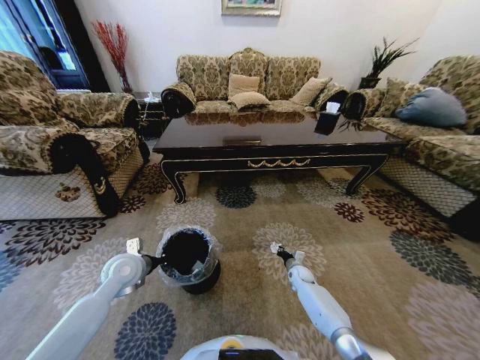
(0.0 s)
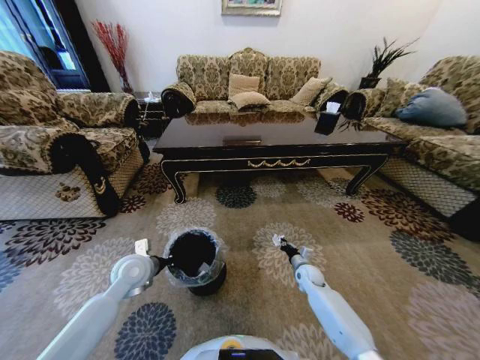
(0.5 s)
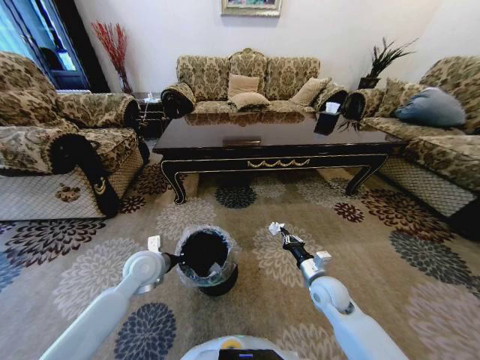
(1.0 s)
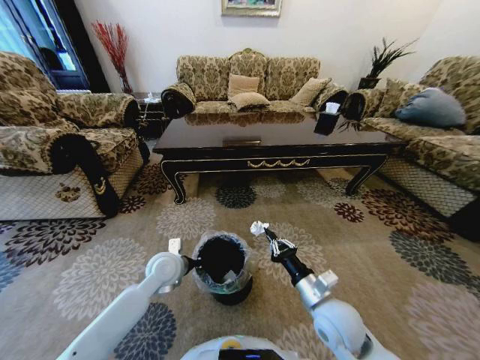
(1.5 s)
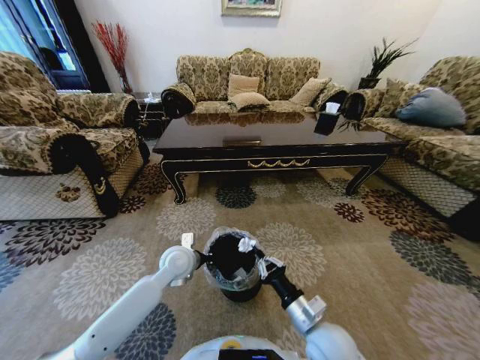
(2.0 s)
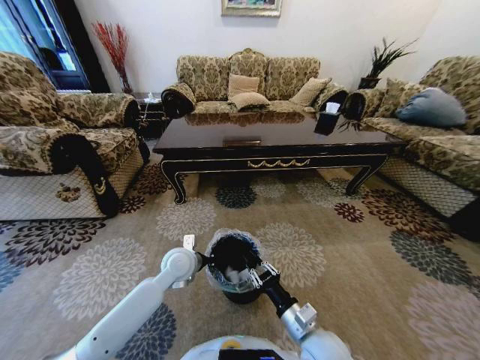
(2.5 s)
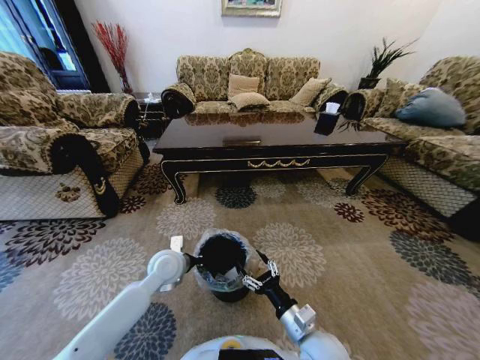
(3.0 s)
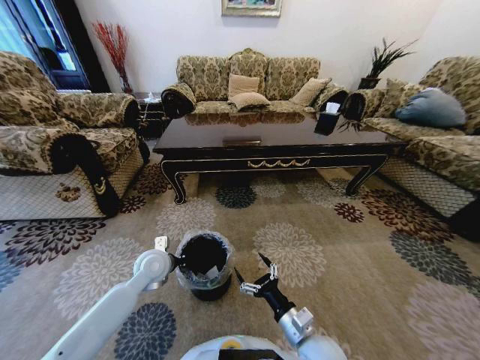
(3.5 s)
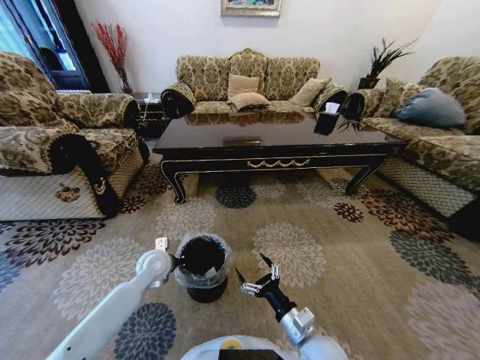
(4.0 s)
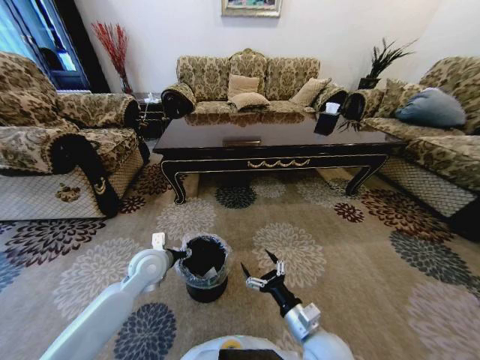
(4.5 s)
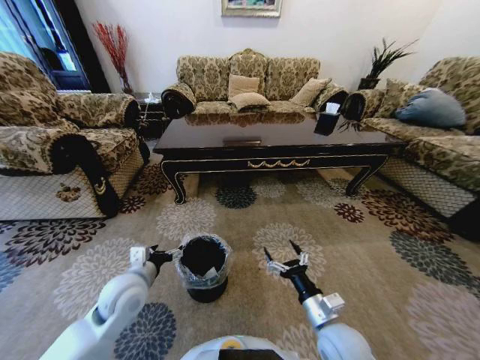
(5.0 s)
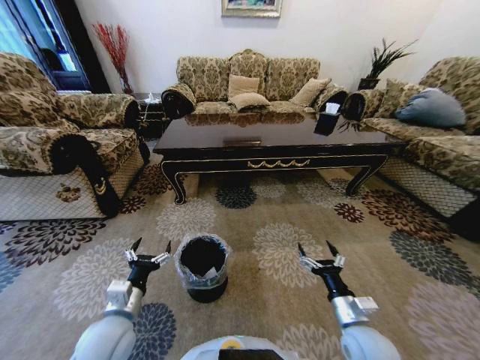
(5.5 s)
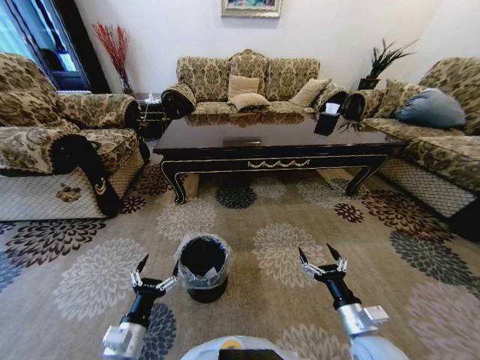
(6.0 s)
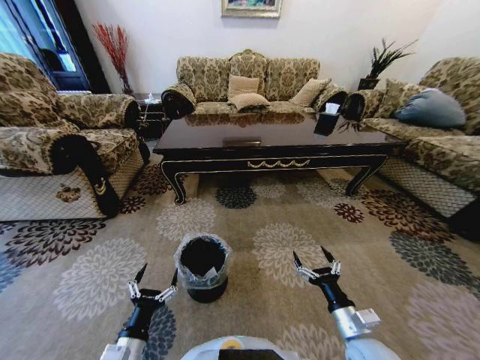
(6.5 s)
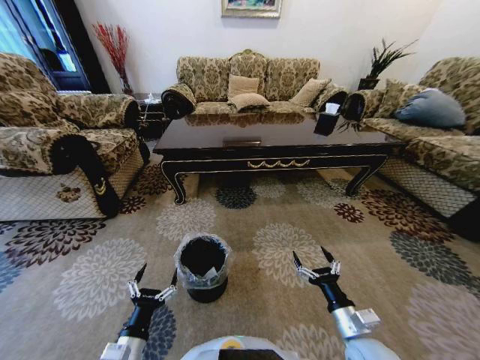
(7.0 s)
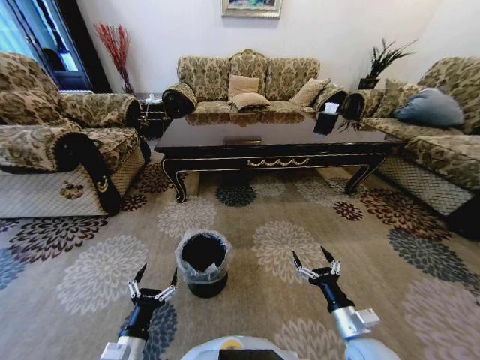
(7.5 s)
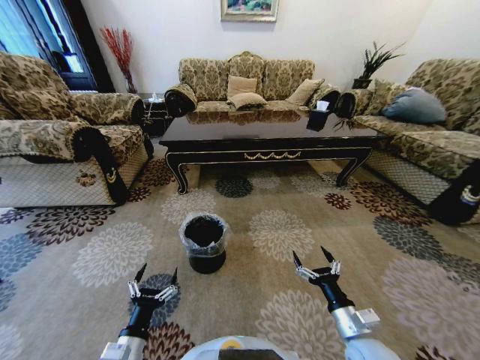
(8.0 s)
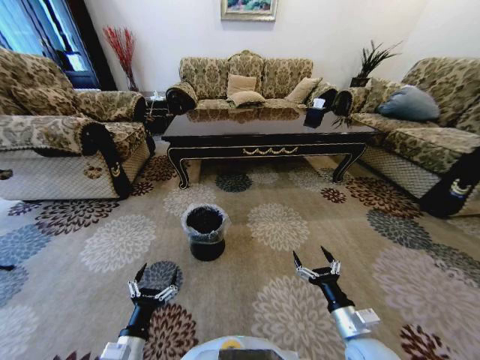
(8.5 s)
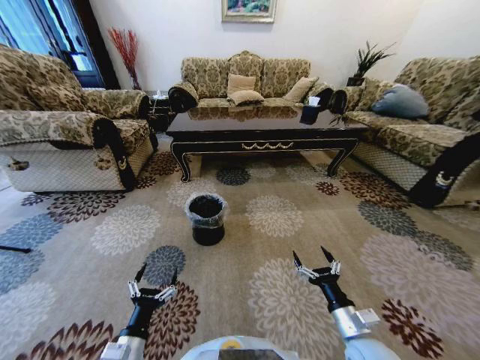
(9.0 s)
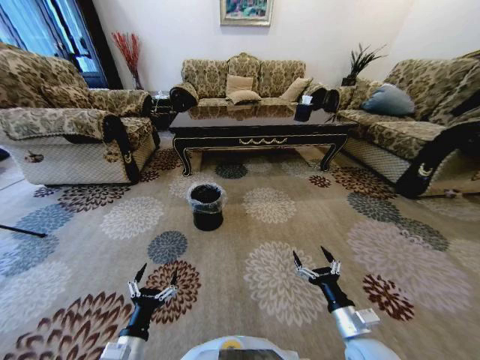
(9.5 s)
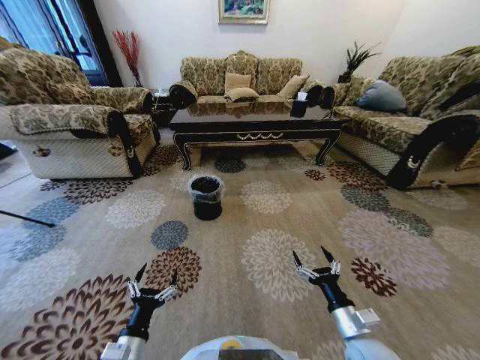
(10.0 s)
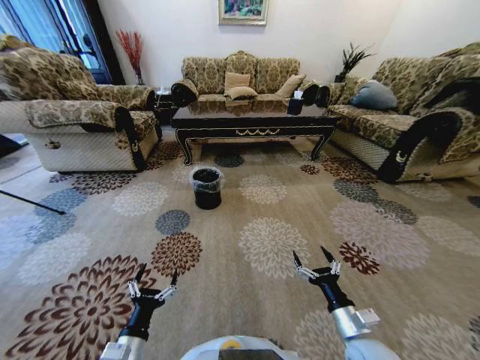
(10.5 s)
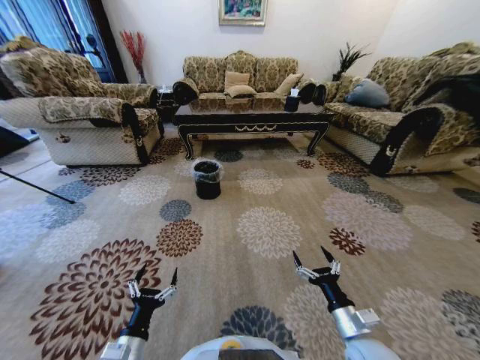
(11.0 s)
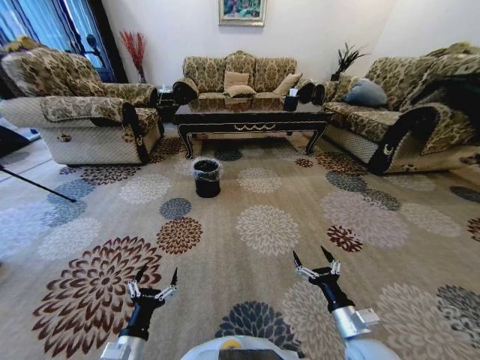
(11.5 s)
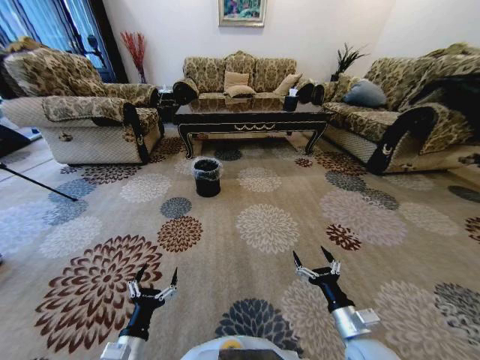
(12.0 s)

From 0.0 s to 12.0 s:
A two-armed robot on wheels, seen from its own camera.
Task of the whole recording: Move to the front of the table and pick up the trash from the floor, then place it into the trash bin.
From 0.0 s to 2.0 s: The right gripper moves backward, upward and to the left, approximately 35 cm. Meanwhile the left gripper goes some 15 cm to the right.
From 2.0 s to 4.0 s: The right gripper opens its fingers. The left gripper moves to the left, approximately 10 cm.
From 4.0 s to 6.0 s: The left gripper travels backward by some 25 cm, and opens up. Meanwhile the right gripper shifts some 10 cm to the right.

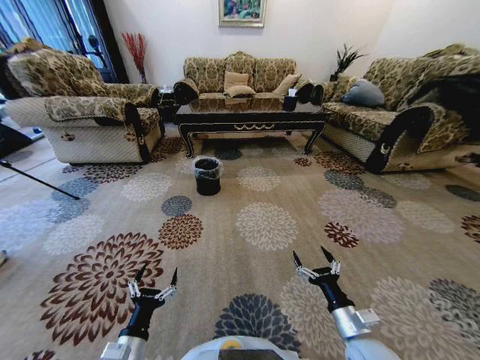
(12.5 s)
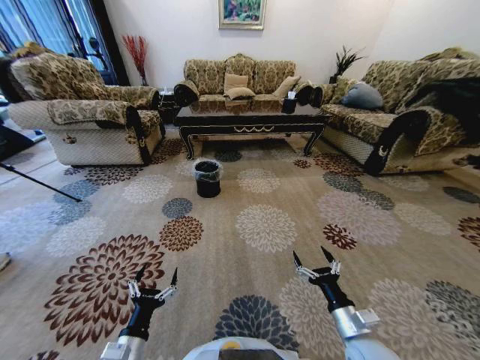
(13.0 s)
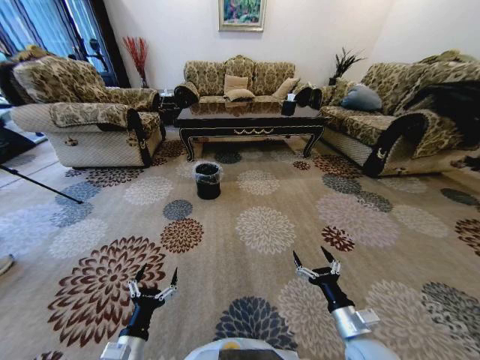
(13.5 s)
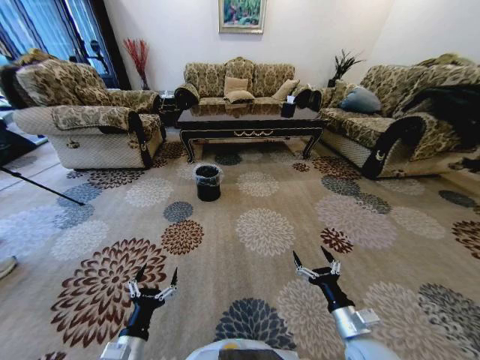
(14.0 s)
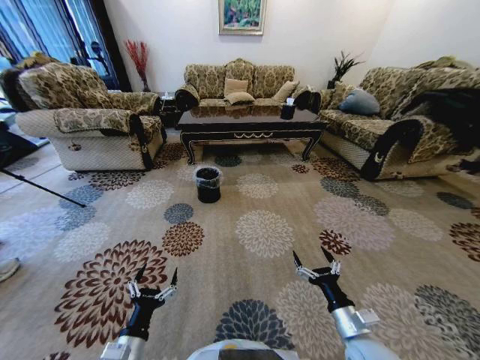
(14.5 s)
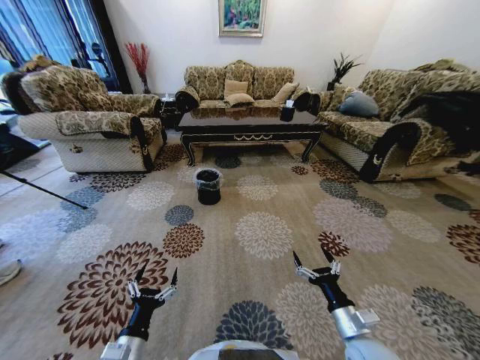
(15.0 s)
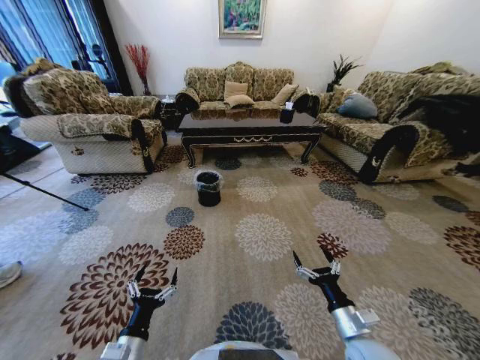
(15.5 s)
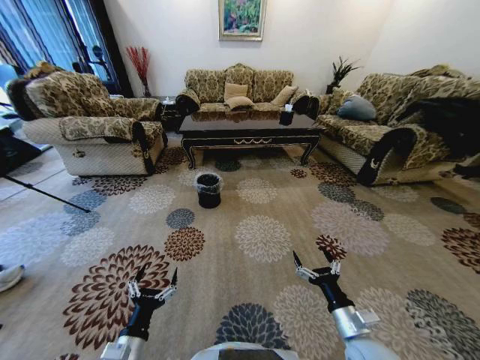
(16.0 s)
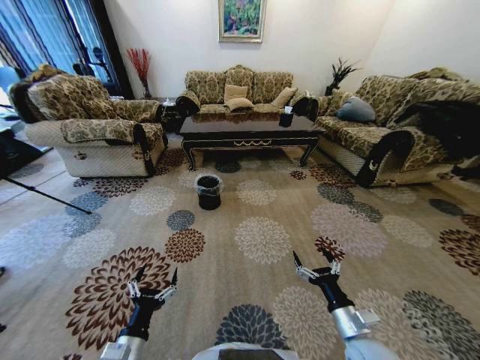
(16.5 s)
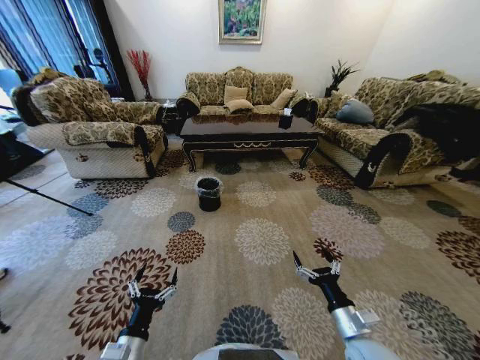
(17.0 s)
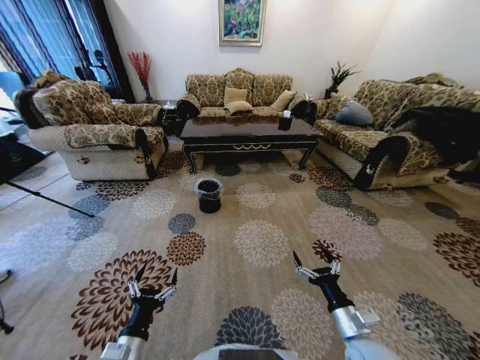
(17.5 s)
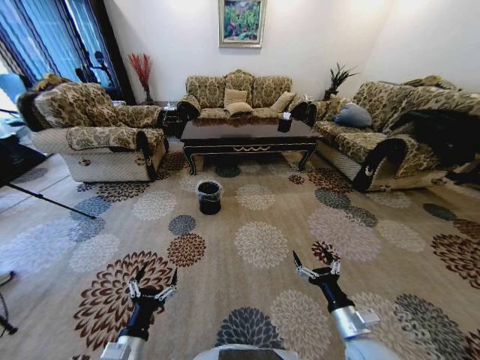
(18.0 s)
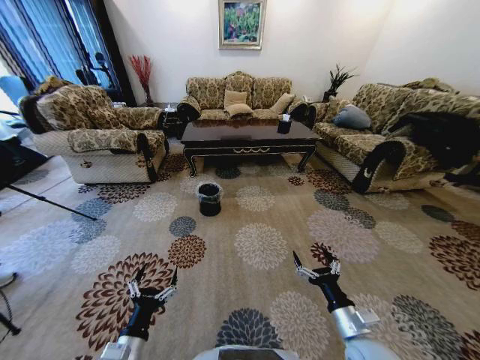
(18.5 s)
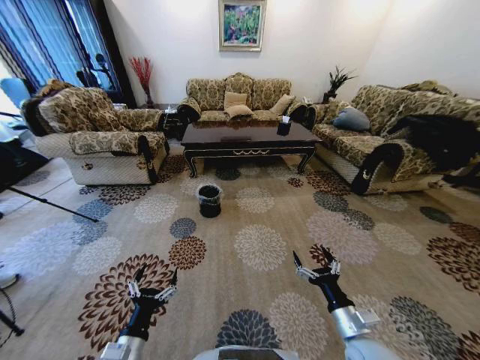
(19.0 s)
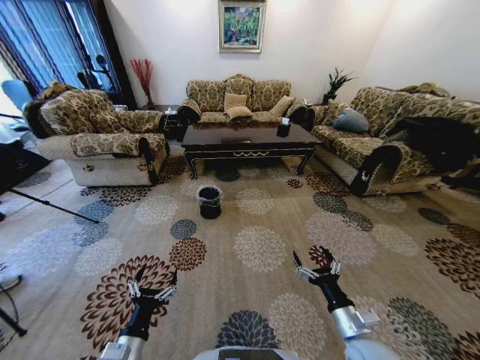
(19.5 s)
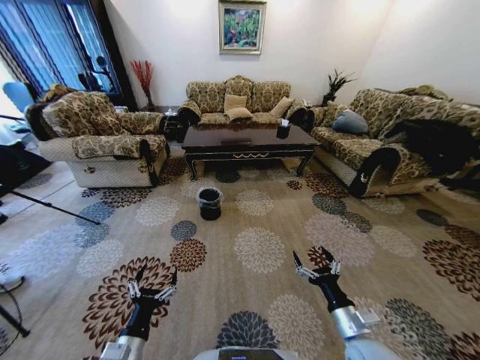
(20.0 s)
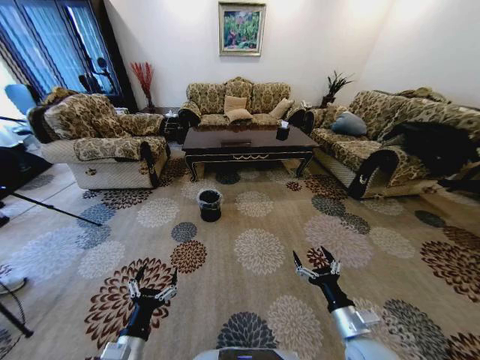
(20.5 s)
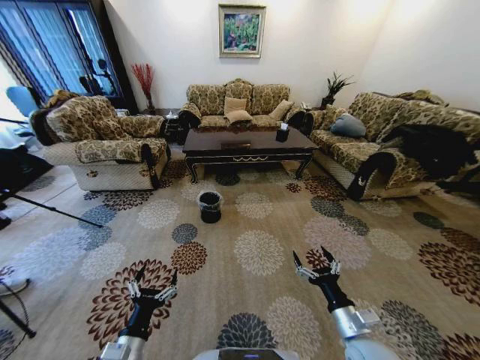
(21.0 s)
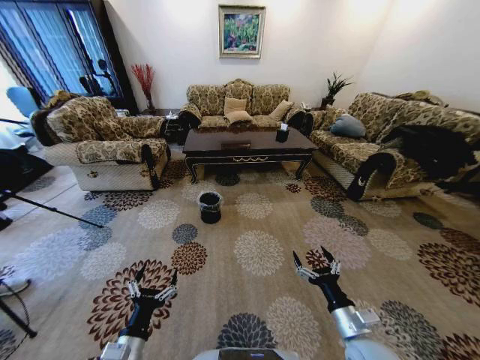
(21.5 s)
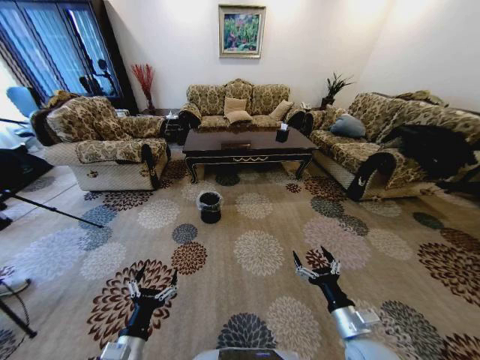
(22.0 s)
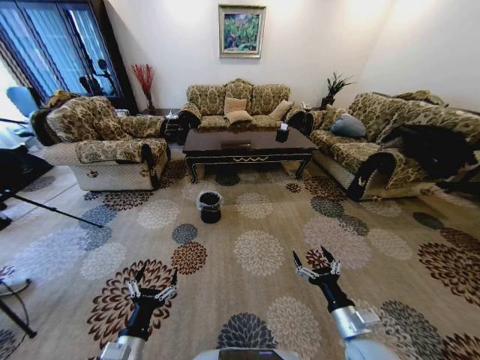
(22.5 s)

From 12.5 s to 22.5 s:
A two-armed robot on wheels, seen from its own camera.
Task of the whole recording: Move to the front of the table and pick up the trash from the floor, then place it into the trash bin.
From 20.5 s to 22.5 s: The two grippers keep their place.

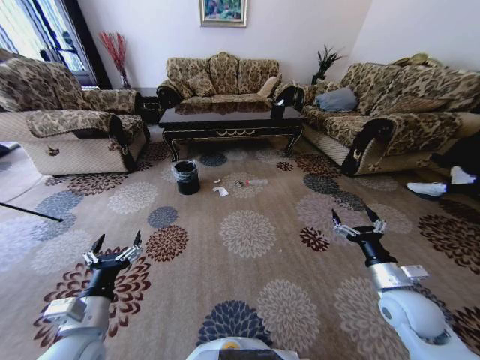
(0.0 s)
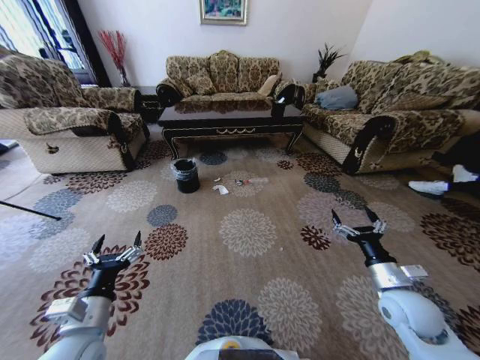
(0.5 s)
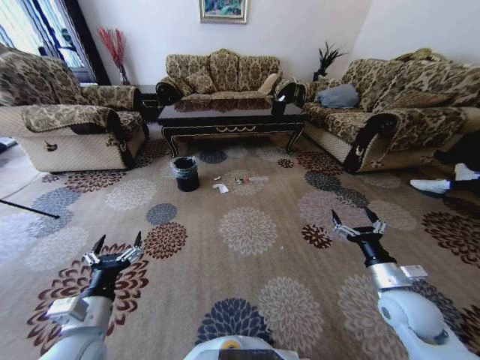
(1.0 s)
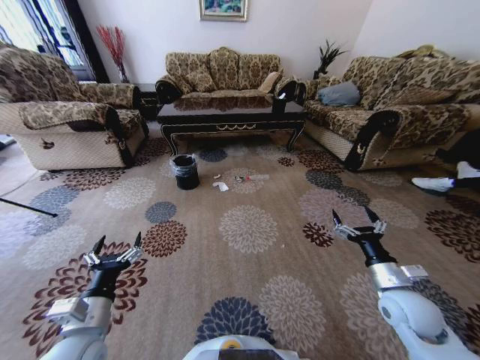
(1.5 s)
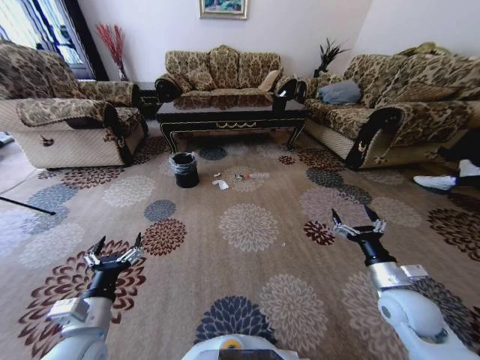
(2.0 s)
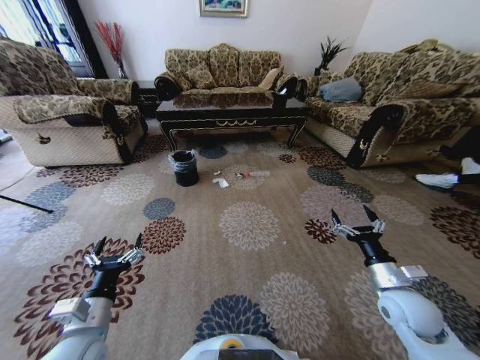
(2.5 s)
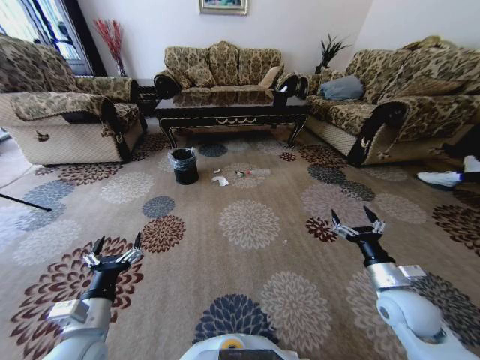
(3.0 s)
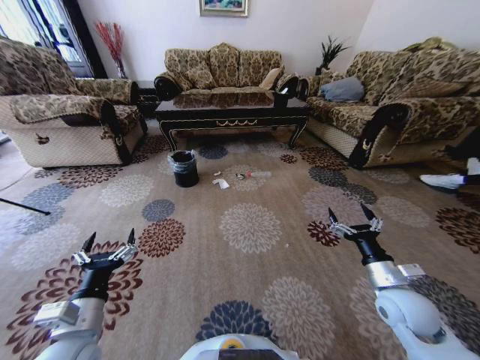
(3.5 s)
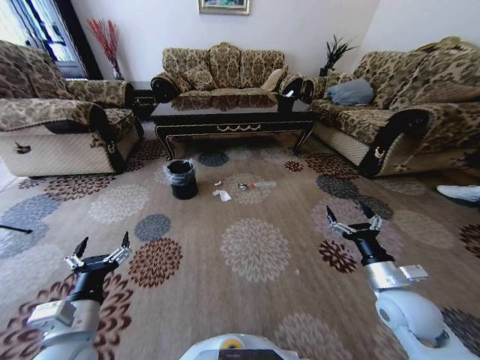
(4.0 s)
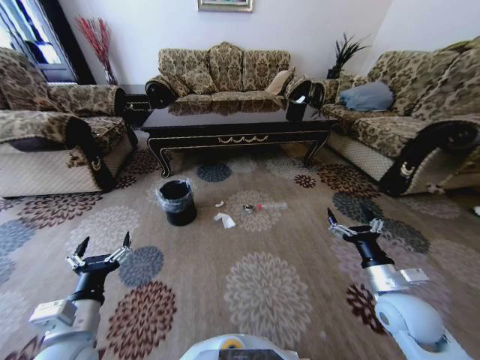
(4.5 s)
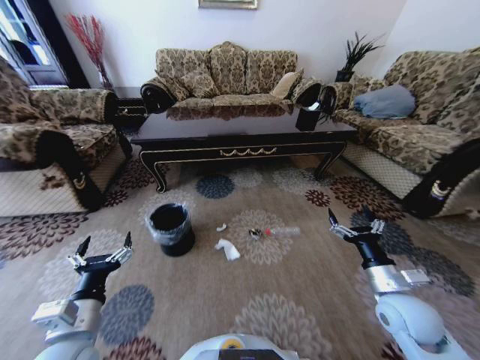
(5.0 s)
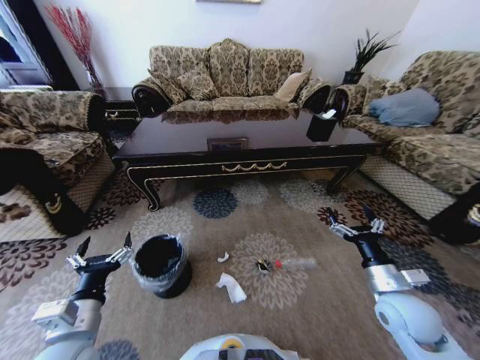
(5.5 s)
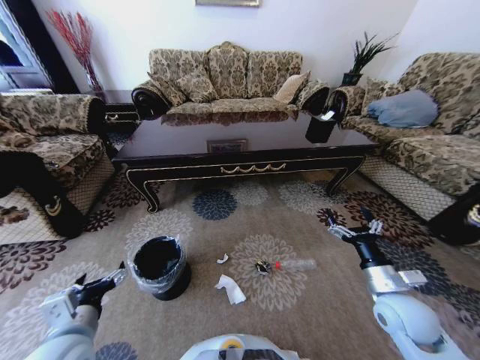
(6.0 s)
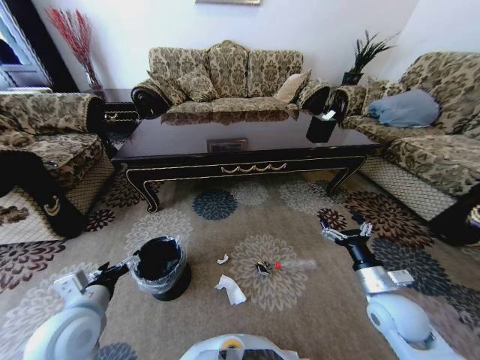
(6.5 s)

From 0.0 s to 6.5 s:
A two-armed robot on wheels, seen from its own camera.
Task of the whole recording: Move to the front of the table and pick up the trash from the floor, then place it into the trash bin.
From 4.5 s to 6.5 s: The left gripper shifts by approximately 5 cm.
